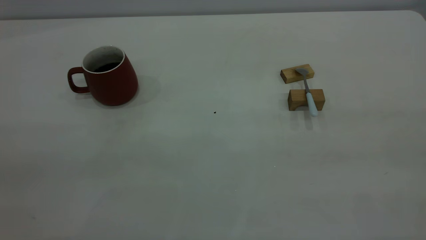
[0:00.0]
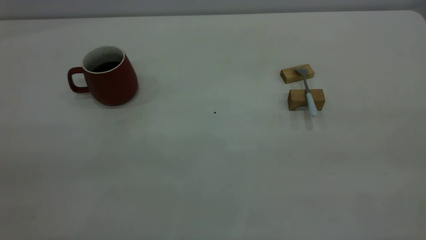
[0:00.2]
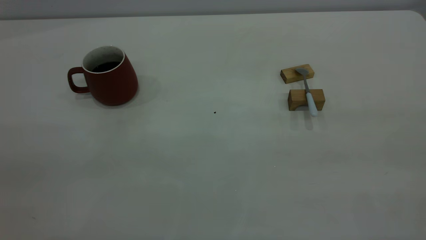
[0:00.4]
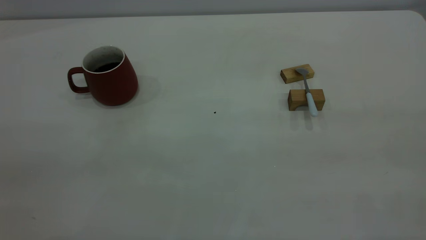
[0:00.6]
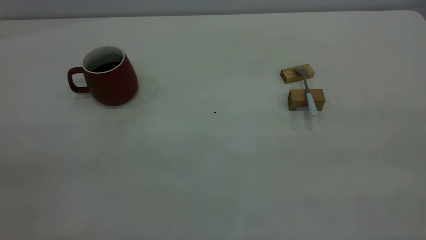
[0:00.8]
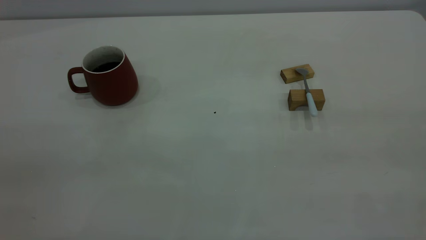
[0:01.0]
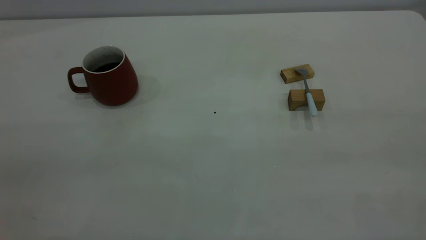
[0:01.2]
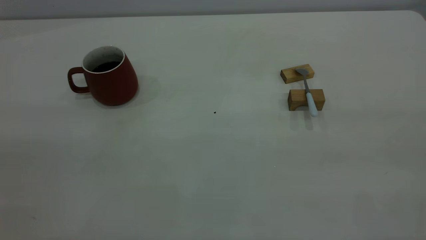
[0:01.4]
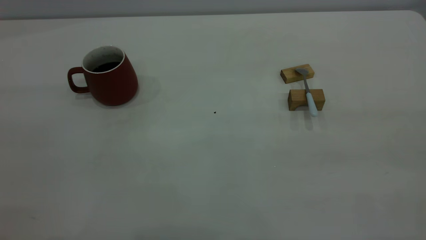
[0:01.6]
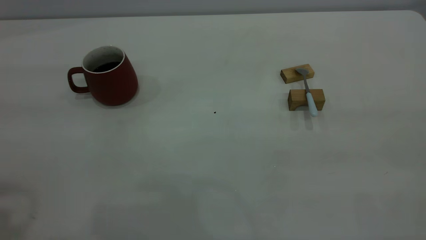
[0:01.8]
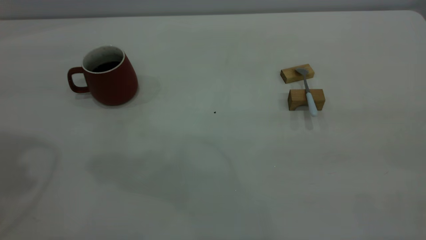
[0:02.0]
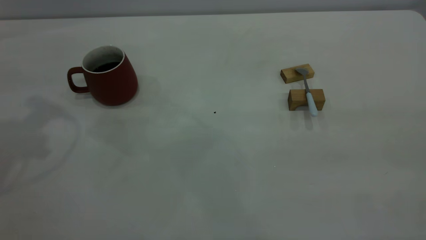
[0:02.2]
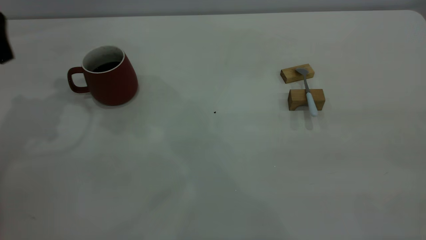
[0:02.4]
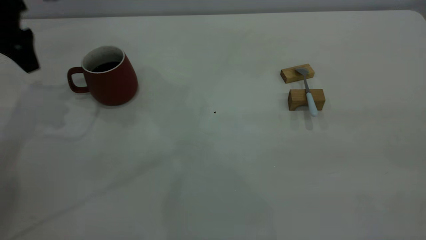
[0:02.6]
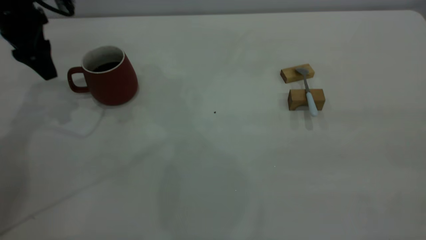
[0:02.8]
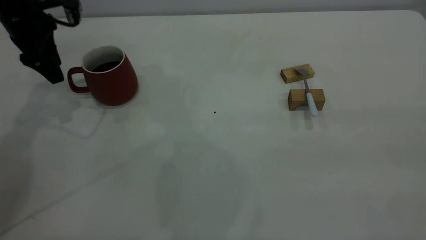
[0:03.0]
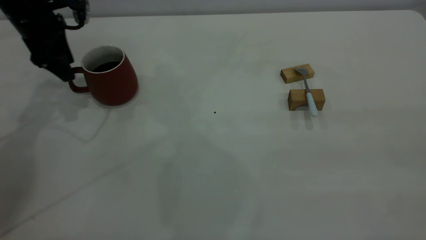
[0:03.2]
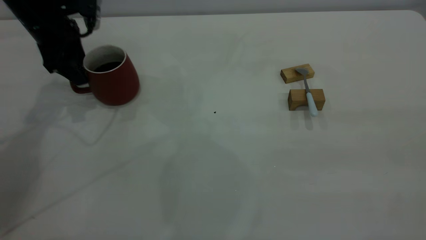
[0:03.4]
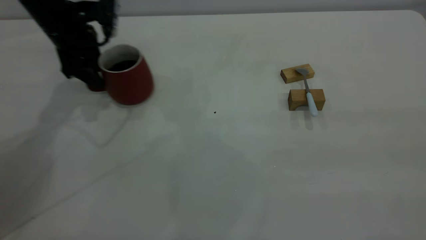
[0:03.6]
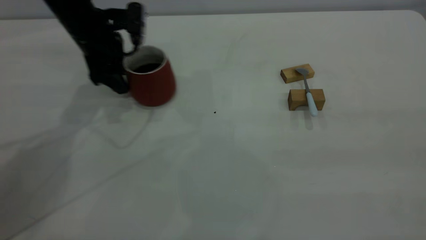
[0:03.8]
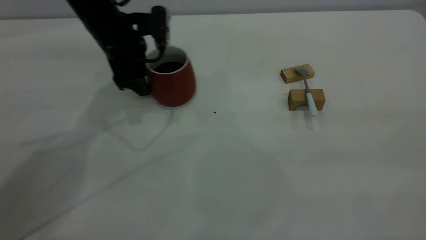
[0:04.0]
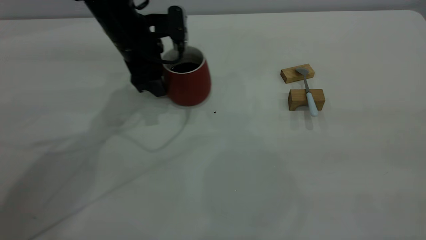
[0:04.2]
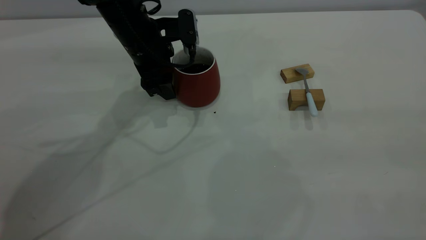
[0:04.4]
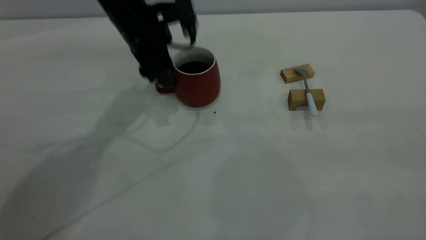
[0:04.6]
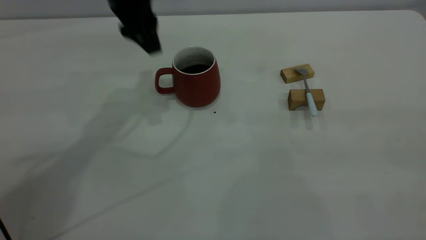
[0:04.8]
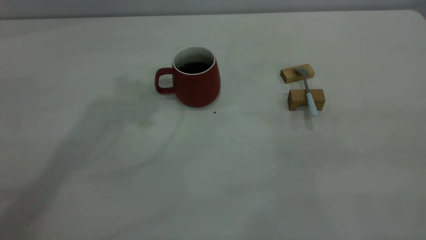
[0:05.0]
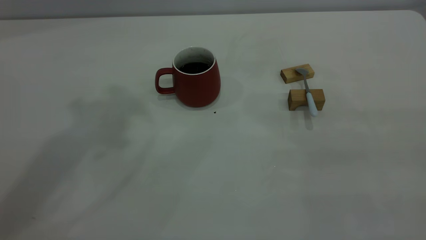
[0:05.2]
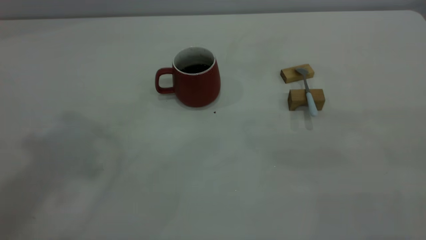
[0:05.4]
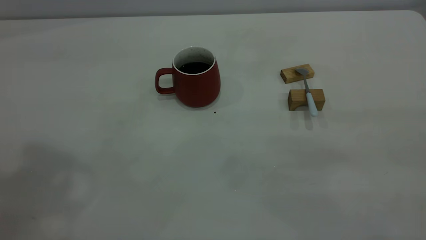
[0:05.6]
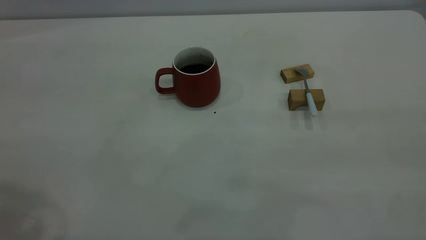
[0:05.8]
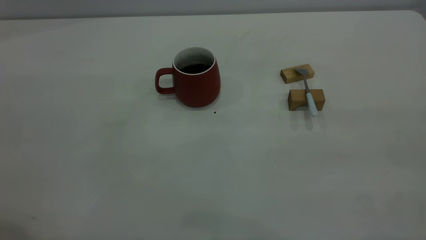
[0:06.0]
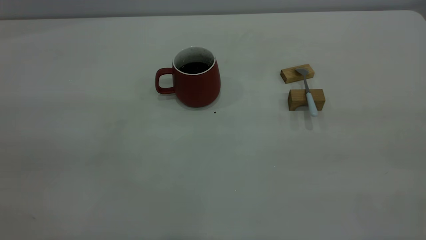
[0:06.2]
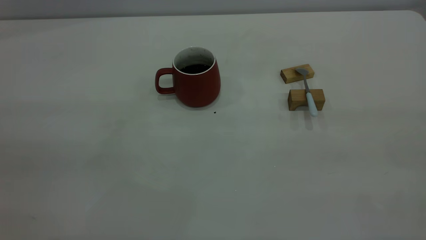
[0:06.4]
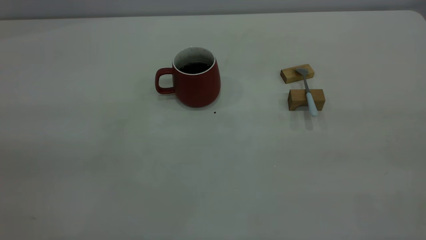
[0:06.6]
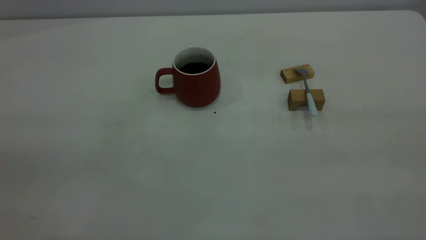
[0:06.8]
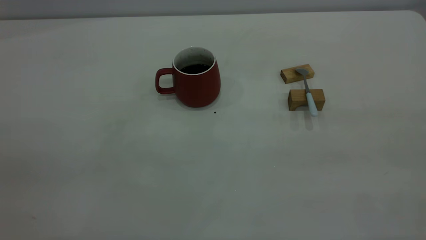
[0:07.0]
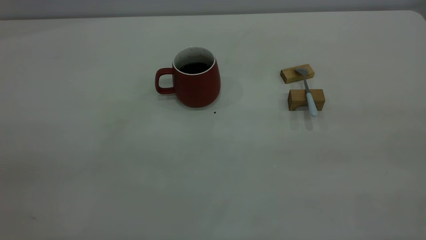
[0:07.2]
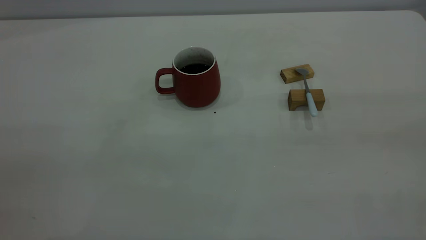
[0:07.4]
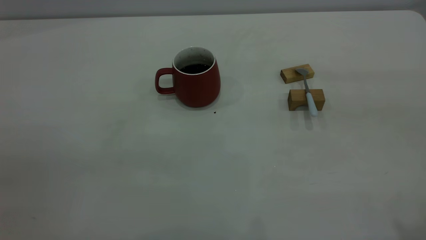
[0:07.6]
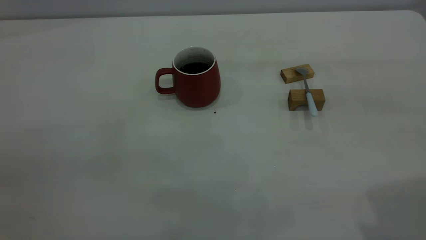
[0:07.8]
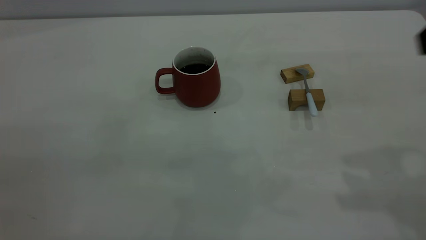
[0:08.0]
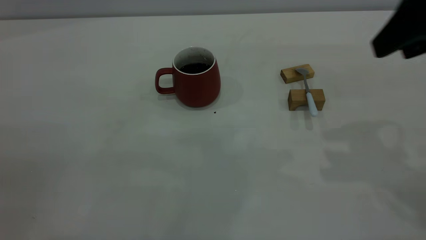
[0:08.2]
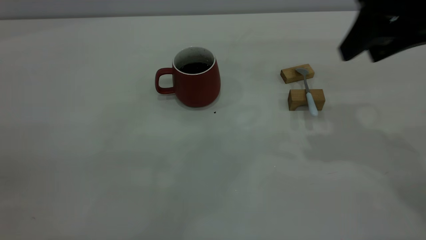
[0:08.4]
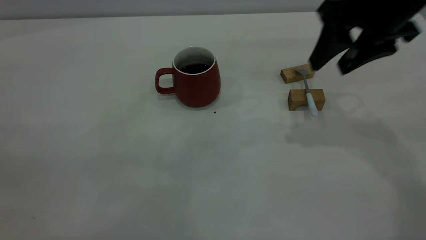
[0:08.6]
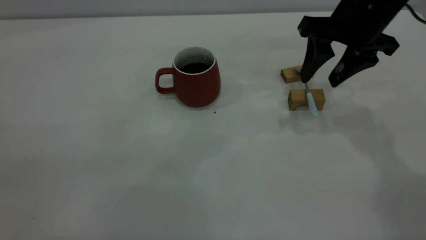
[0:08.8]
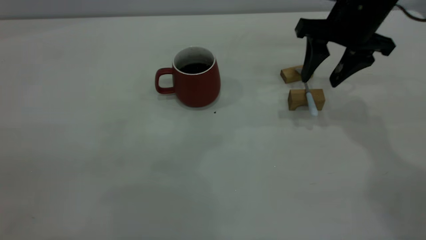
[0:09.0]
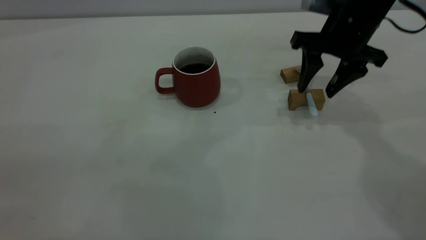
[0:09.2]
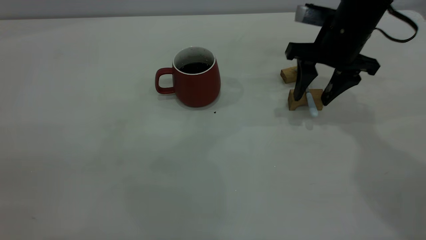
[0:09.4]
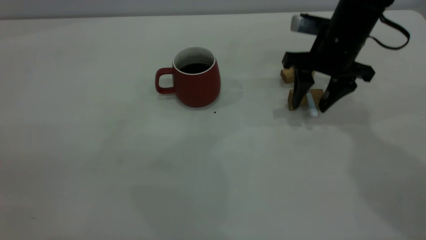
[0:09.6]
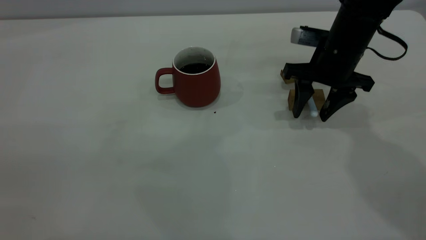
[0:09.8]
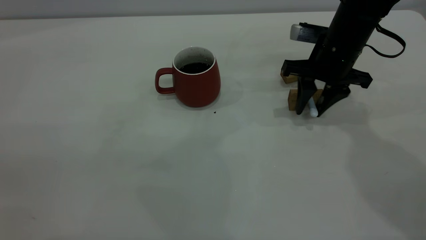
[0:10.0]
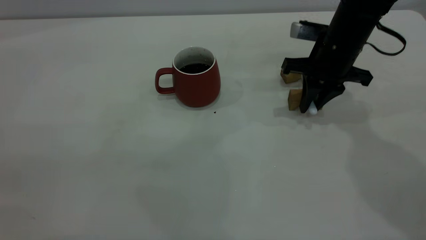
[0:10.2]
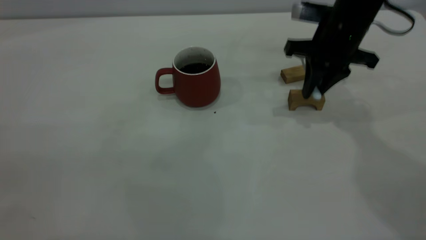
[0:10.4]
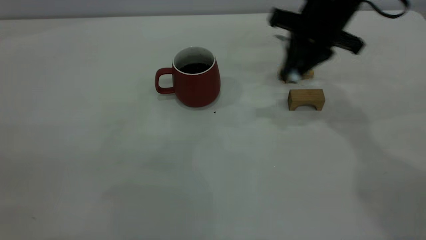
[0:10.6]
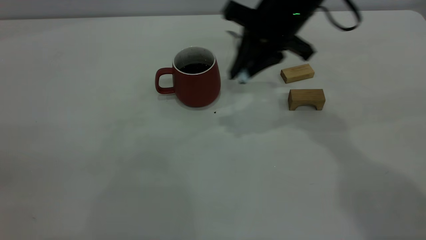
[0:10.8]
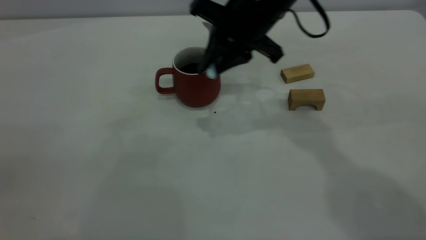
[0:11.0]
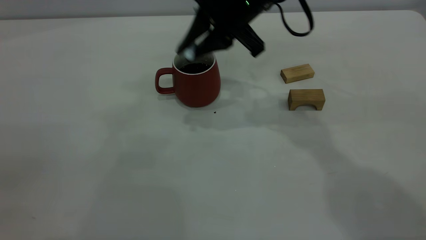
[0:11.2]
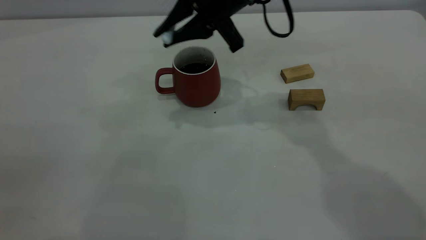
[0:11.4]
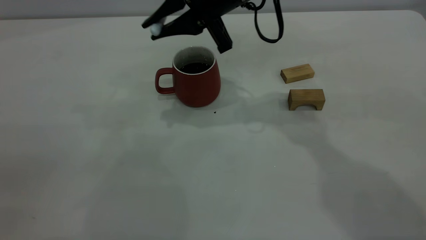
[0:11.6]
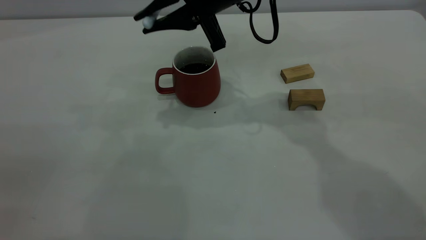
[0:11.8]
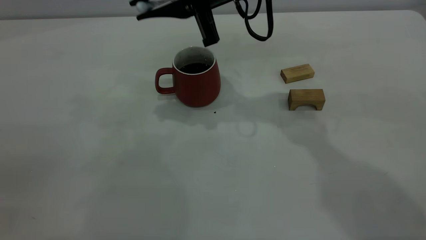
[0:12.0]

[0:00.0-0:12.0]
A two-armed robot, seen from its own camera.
Step, 0:00.0 to 0:04.6: Move the cup with coffee to the center of view.
Step, 0:04.8 to 0:10.4: Pick up the spoon.
0:01.6 to 0:03.0: The left gripper moves forward and downward, approximately 40 cm.
0:03.0 to 0:04.4: The left gripper goes roughly 20 cm to the right.
0:04.4 to 0:06.0: The left gripper moves backward, upward and to the left, some 50 cm.
0:07.6 to 0:09.0: The right gripper travels forward and downward by roughly 35 cm.
0:09.0 to 0:10.4: The right gripper closes up.
0:10.4 to 0:12.0: The right gripper goes roughly 15 cm to the left and upward.

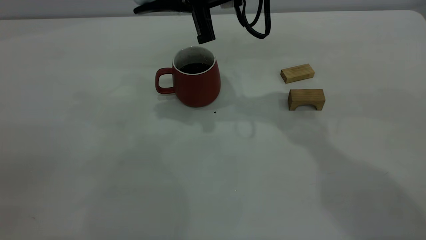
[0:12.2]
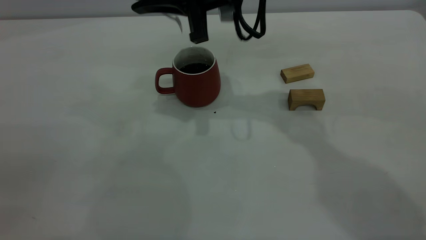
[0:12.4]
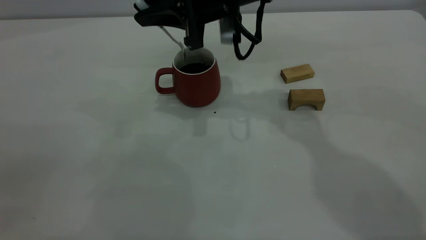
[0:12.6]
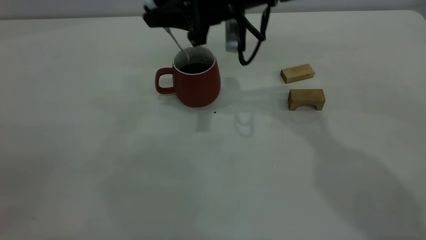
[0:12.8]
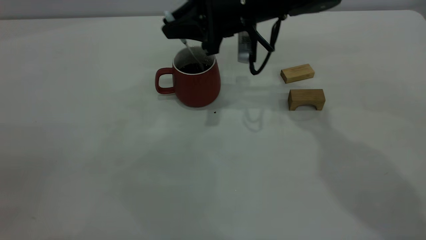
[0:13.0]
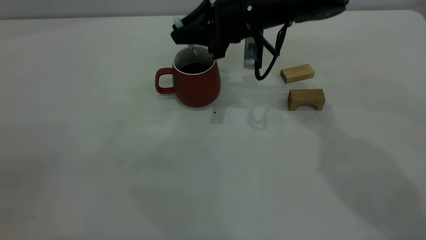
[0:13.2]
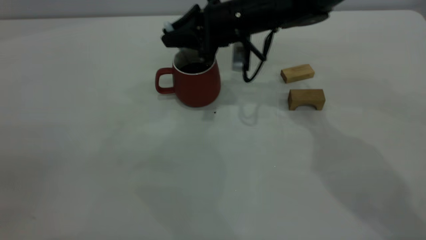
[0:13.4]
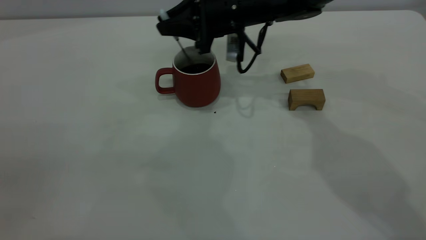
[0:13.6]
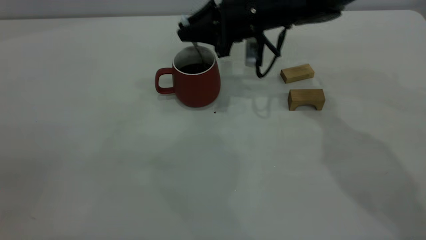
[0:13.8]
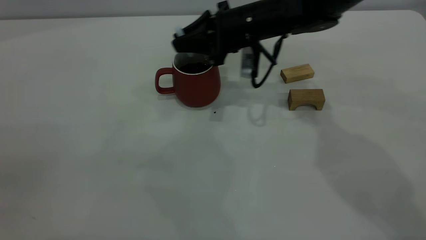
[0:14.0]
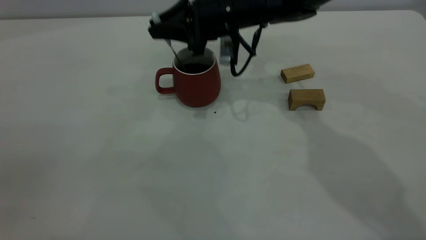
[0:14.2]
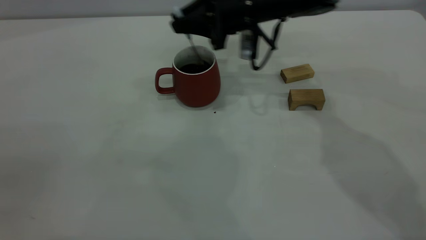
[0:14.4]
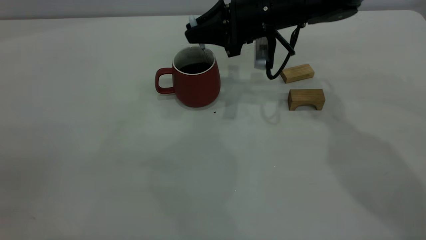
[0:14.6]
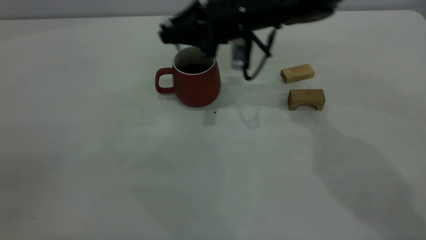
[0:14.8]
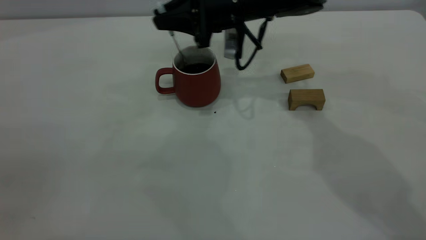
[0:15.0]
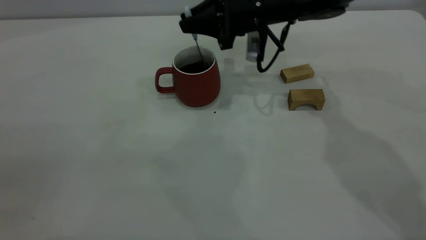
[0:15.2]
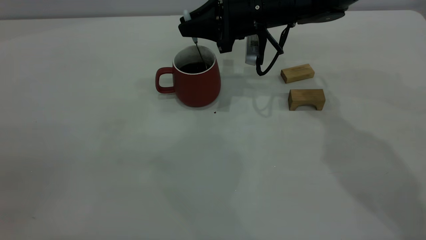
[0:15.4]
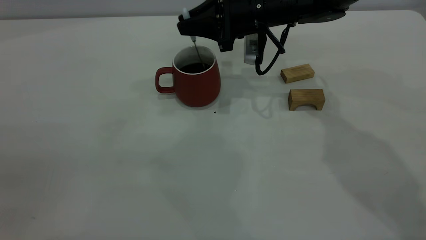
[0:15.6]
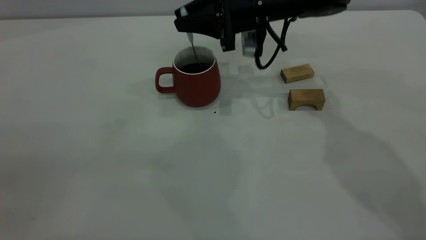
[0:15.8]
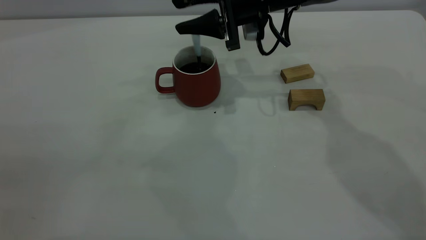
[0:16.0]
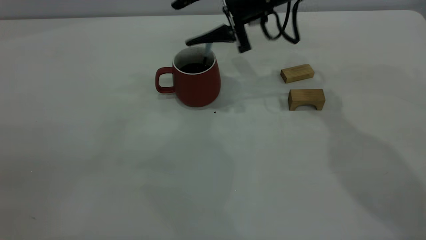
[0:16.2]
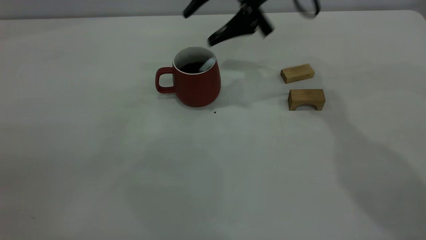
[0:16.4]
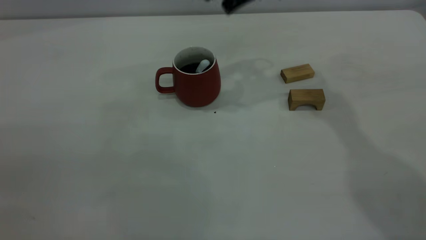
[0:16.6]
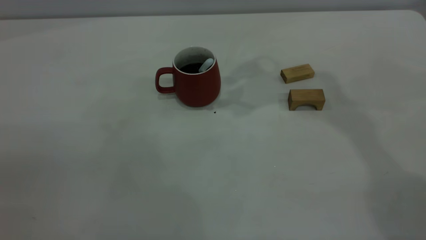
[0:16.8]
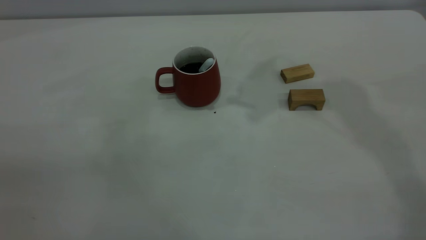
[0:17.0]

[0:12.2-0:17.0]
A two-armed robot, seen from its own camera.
Step, 0:12.2 to 0:16.2: Stir the coffee in the cup.
0:12.2 to 0:13.8: The right gripper moves downward and forward, approximately 10 cm.
0:13.8 to 0:15.4: The right gripper moves left and right over approximately 5 cm, changing direction 3 times.
0:15.4 to 0:17.0: The right gripper is displaced upward by some 35 cm, and opens.
